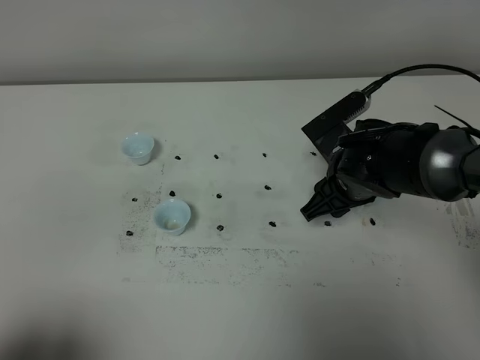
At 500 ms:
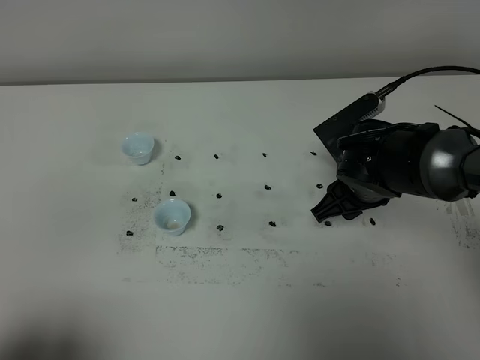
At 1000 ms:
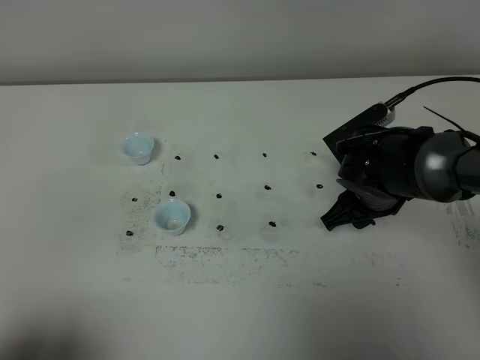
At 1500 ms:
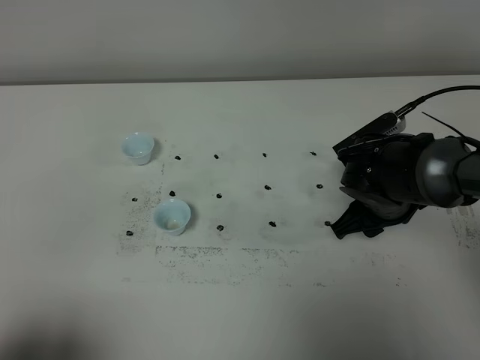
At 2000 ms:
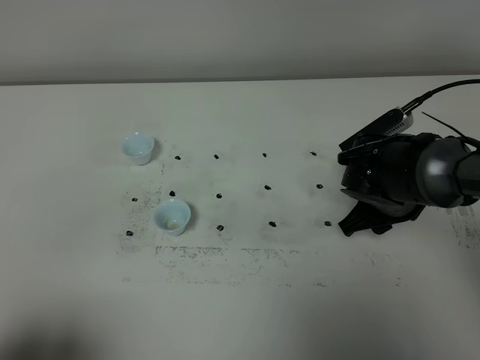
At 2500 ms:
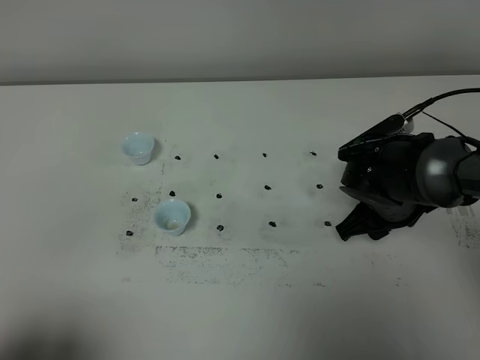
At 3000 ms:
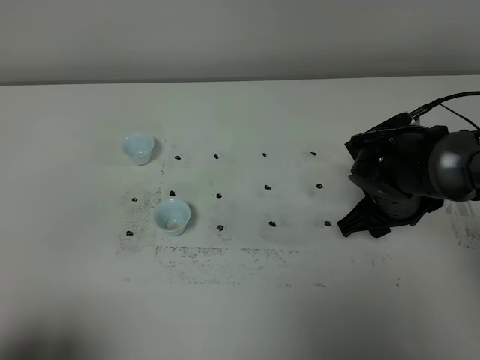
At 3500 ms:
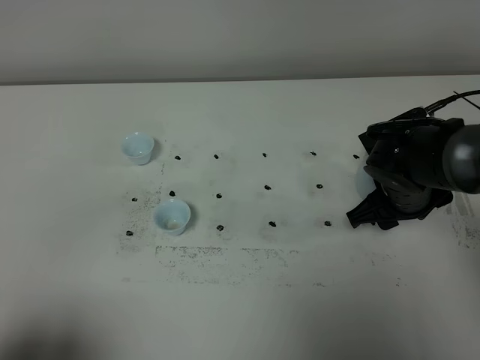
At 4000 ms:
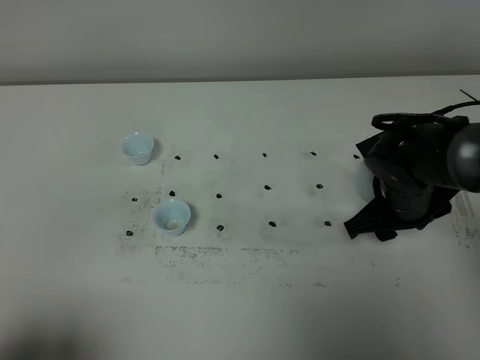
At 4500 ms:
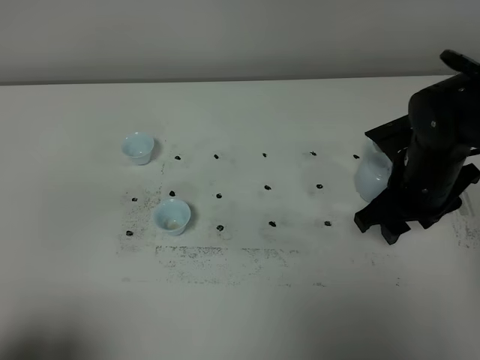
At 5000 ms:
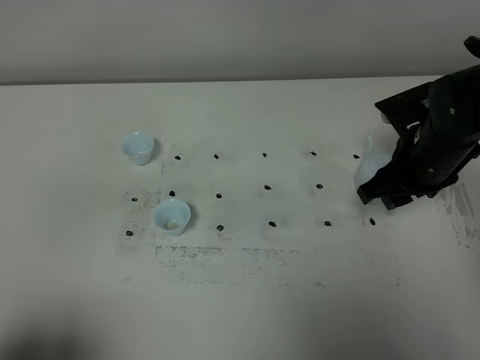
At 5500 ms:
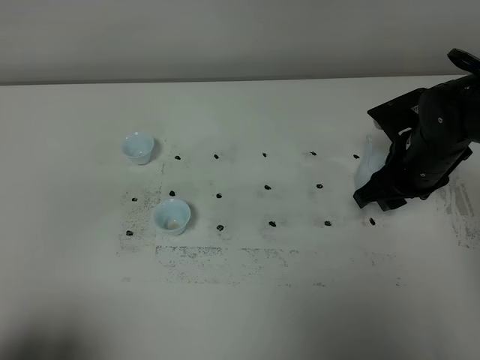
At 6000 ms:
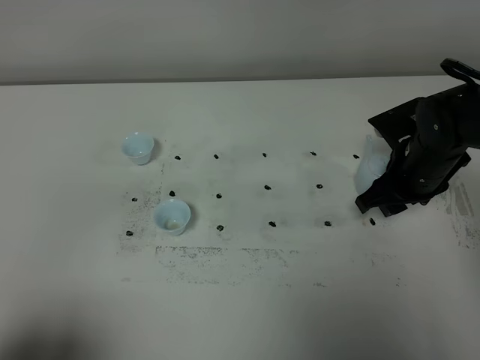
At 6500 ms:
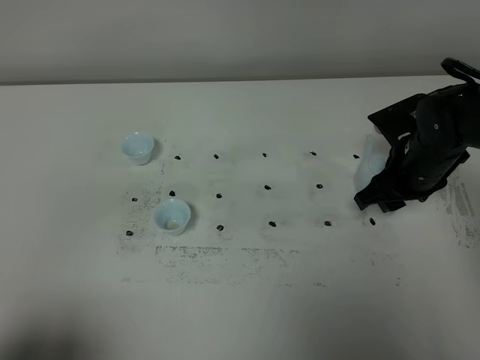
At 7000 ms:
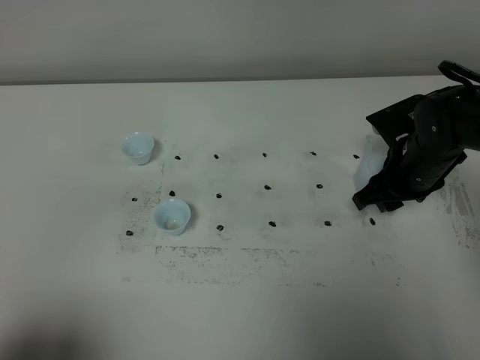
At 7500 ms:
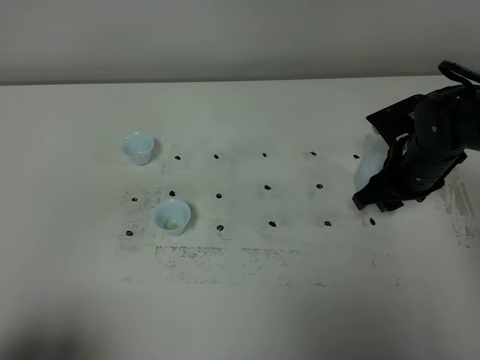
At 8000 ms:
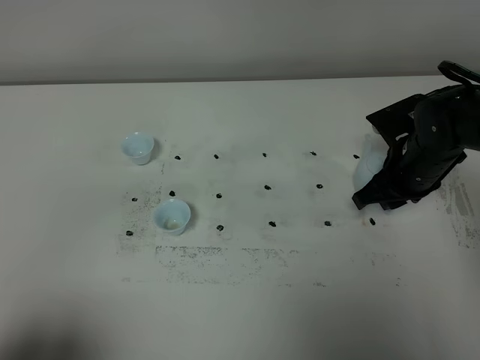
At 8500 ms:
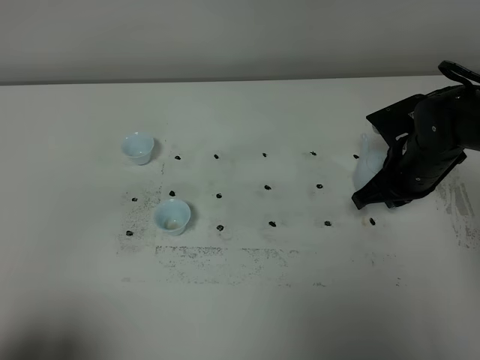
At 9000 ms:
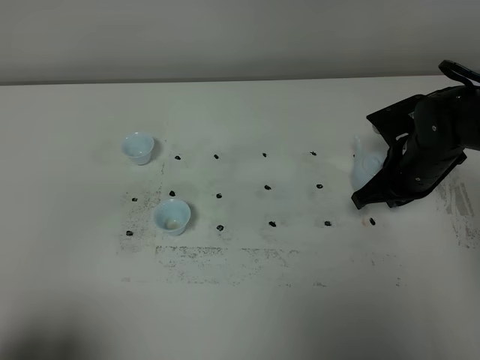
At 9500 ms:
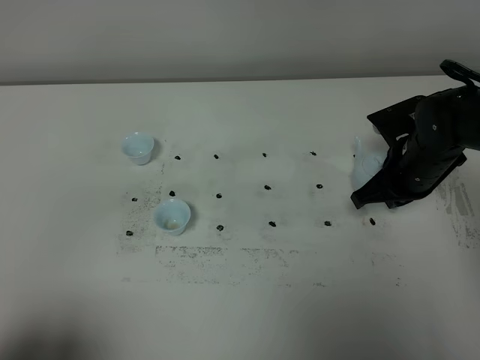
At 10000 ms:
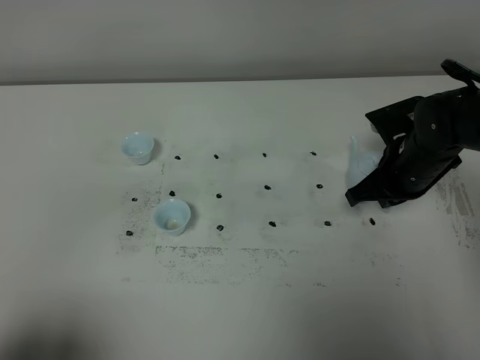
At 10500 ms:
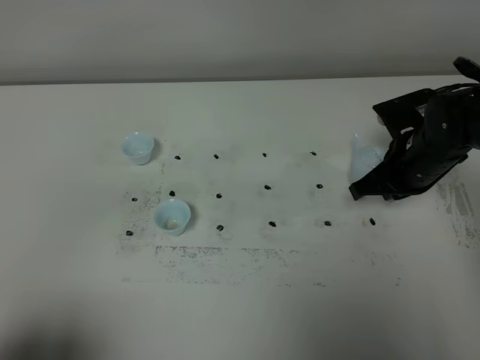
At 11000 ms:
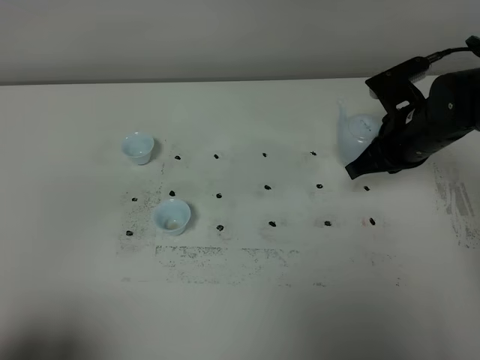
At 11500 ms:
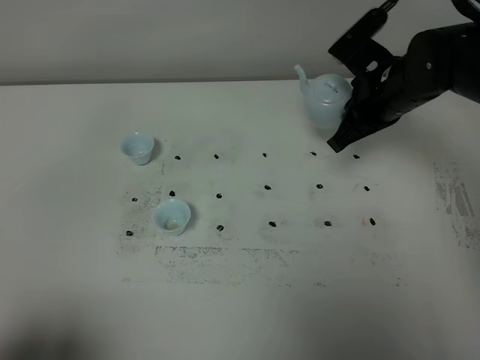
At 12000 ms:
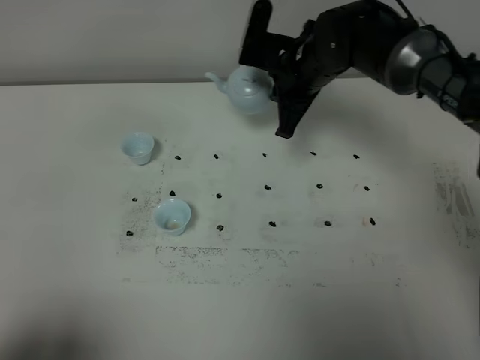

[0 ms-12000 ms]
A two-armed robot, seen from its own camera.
Task of the whole recording: grasp the blue porcelain teapot and pour the tea into the two blue porcelain teacups one by one, put the blue porcelain teapot back in its original place.
Step, 0 ms to 10500 ms: Pick up the teapot with the right gripper.
2000 ms to 4000 ms: The grippers move only a little.
4000 ms to 6000 ms: The right gripper changes place by some 5 cm.
6000 ms to 8000 ms: The two grippers keep their place.
8000 ms to 10000 ms: The right gripper closes up.
10000 ms to 12000 ms: The right gripper heads to the left, forward and upward, covering some 20 cm.

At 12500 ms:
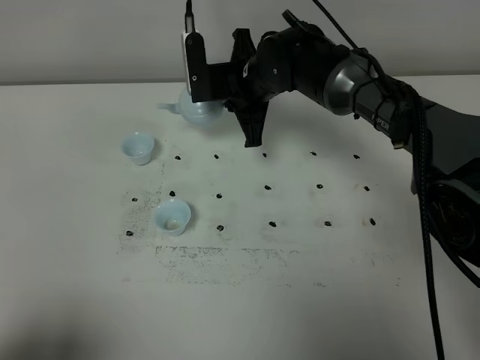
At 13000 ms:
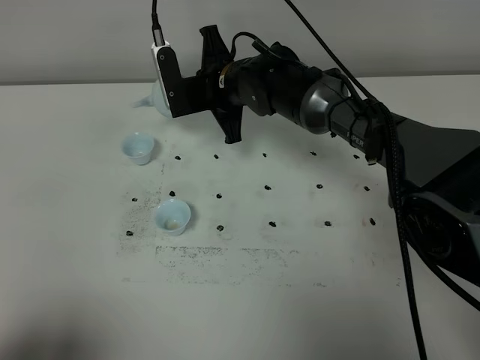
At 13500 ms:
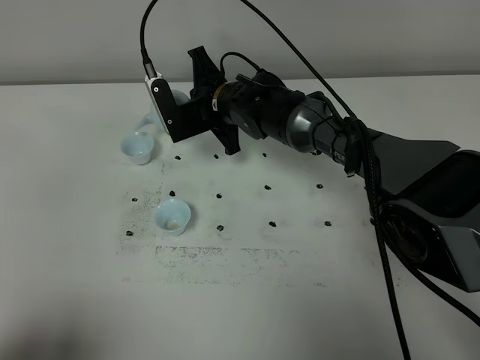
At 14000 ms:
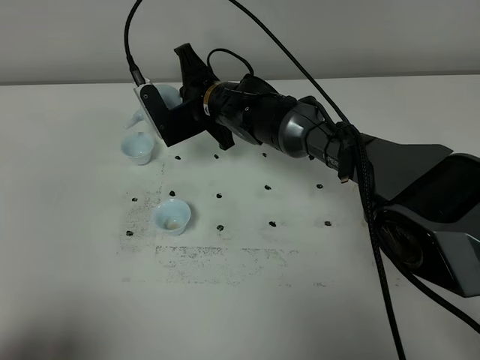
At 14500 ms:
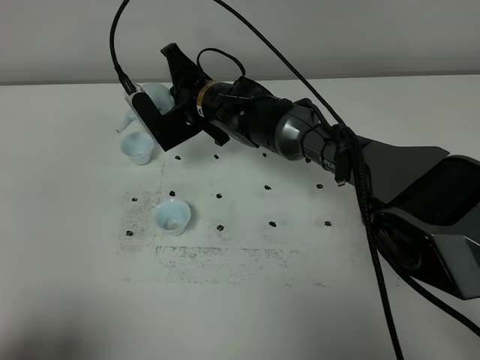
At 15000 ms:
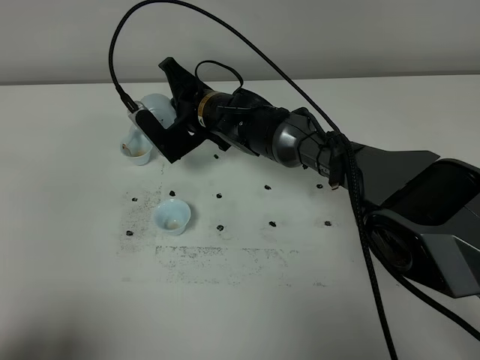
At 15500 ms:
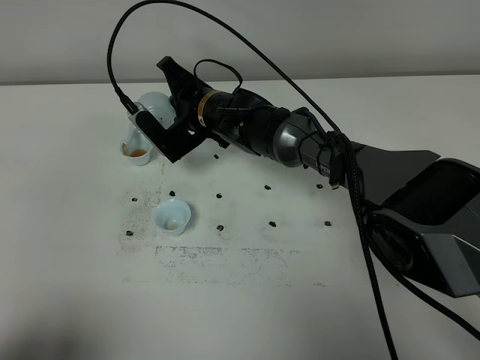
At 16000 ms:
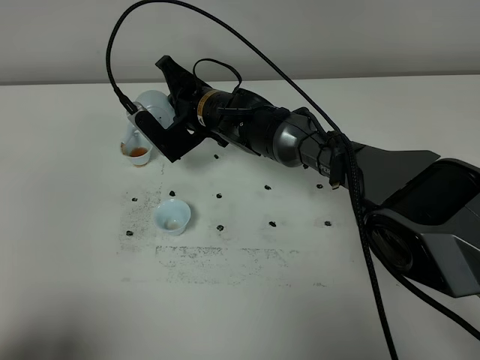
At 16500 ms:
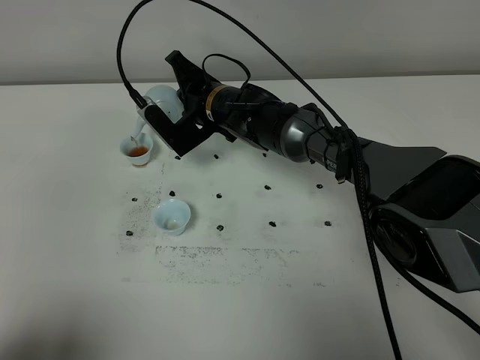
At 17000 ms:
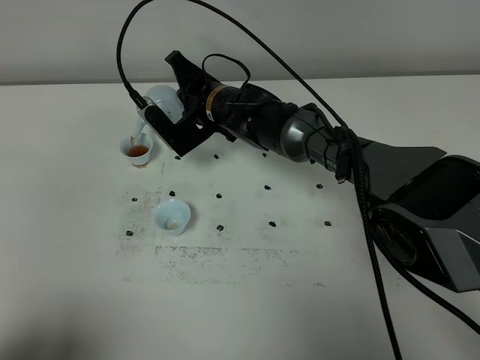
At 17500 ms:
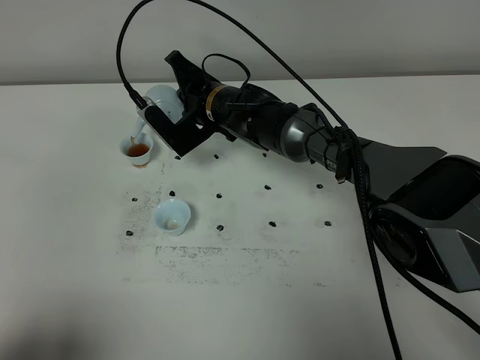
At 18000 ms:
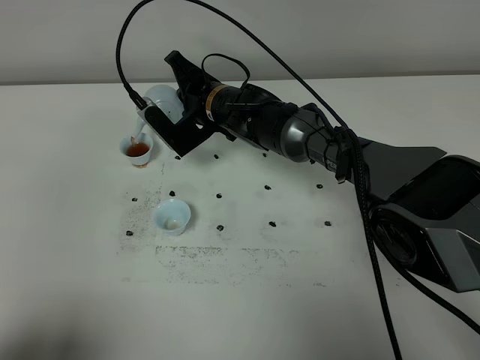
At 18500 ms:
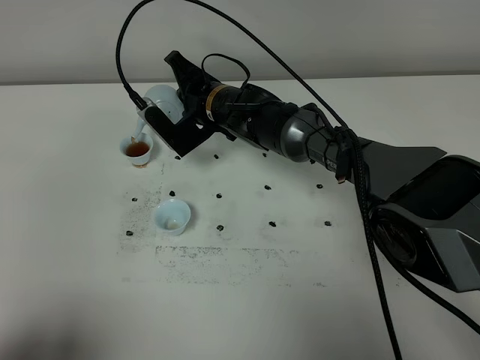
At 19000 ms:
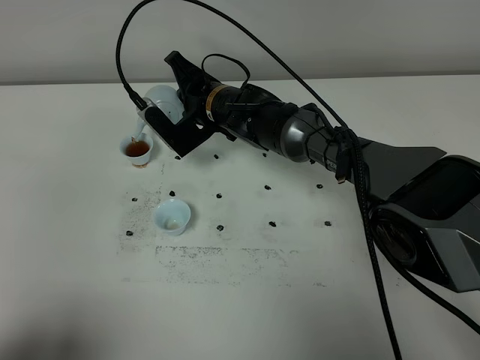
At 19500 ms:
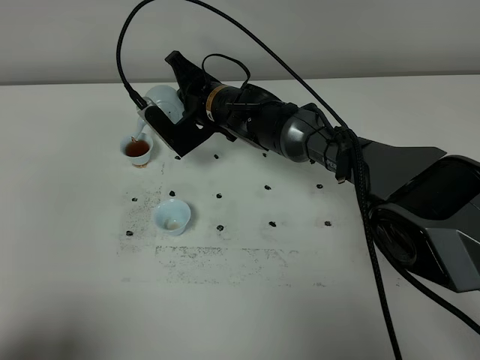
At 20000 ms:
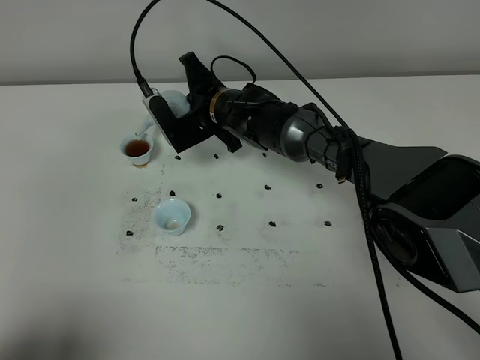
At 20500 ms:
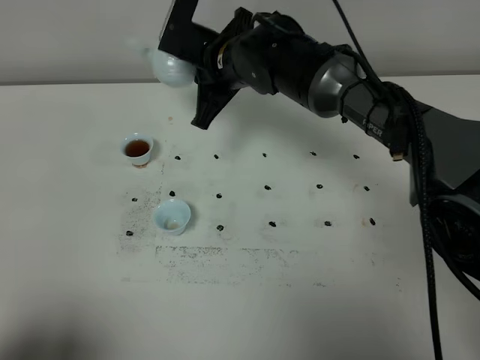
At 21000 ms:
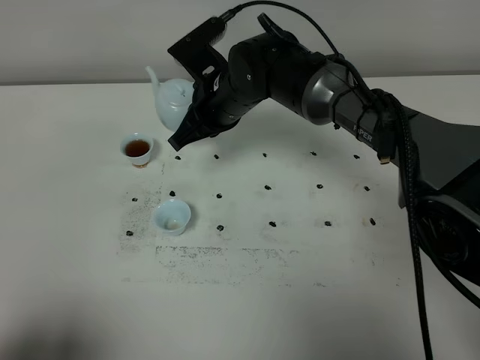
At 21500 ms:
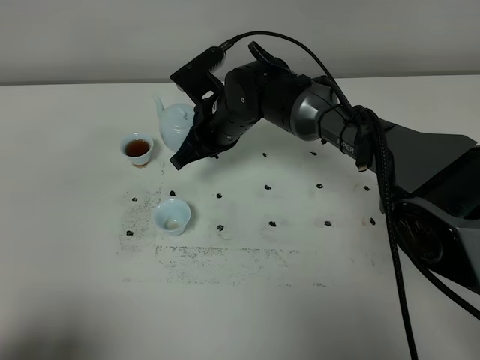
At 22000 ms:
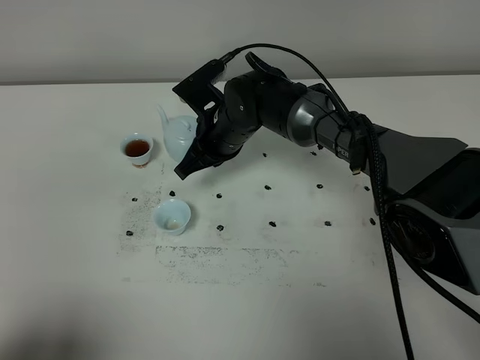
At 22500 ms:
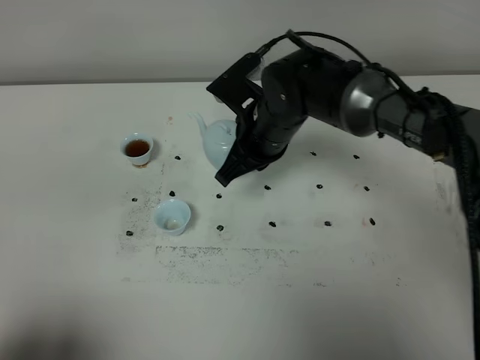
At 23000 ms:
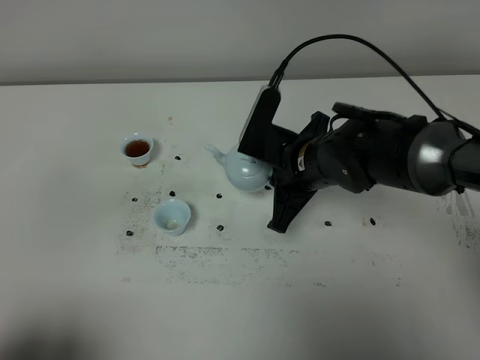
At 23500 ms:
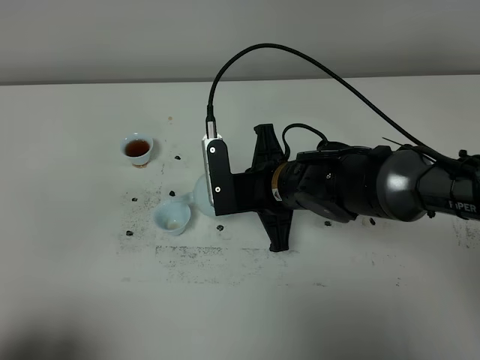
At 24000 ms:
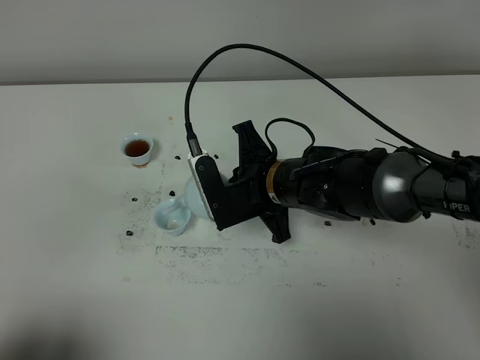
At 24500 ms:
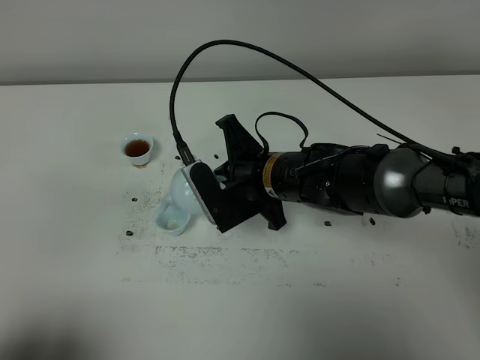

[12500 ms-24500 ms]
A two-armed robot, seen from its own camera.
Task of the whole recording: grasp the blue porcelain teapot and pour the tea into the two blue porcelain teacups one by one, put the blue porcelain teapot back in its original place.
Step, 12500 ms to 20000 ms: Pour tea into the teacup with the right gripper.
12500 ms to 14500 ms: The right gripper goes roughly 5 cm to the left.
14500 ms to 16500 ms: There are only small adjustments of the grippers.
16500 ms to 18500 ms: Both grippers stay put.
18500 ms to 20500 ms: The right gripper travels upward by about 10 cm.
20500 ms to 22500 ms: The right gripper is displaced backward by approximately 5 cm.
22500 ms to 24500 ms: The right gripper is displaced backward by approximately 5 cm.

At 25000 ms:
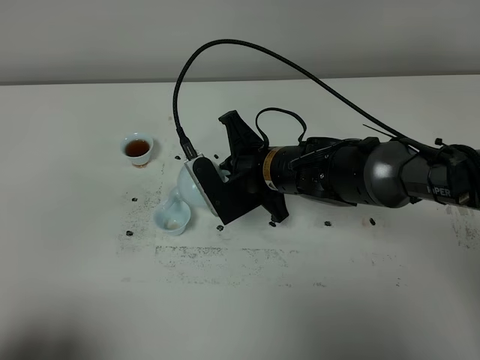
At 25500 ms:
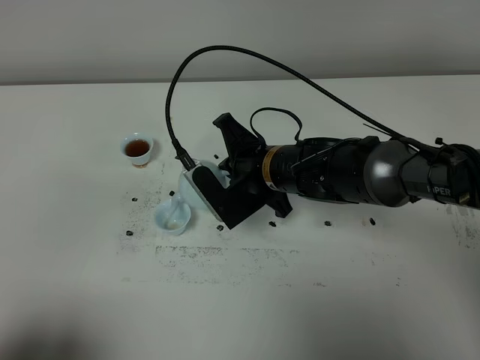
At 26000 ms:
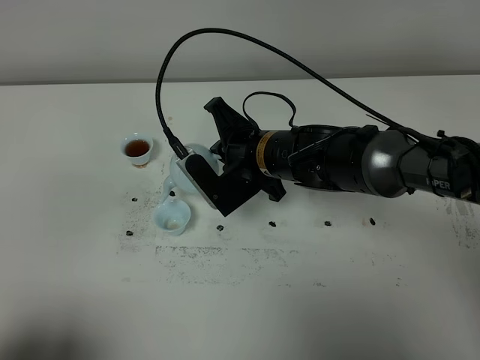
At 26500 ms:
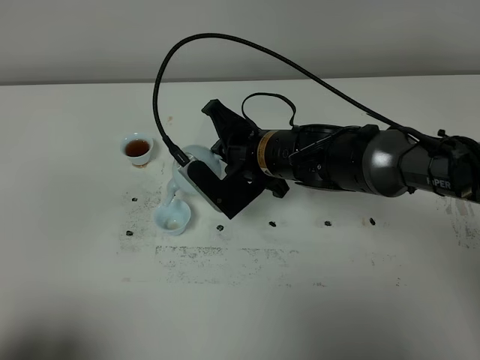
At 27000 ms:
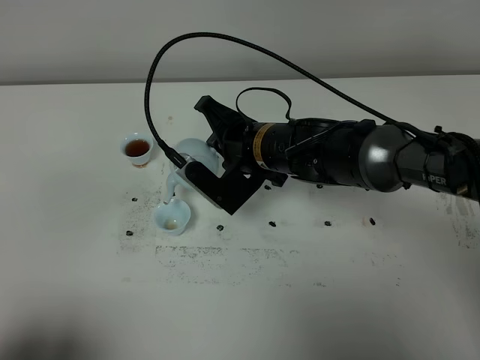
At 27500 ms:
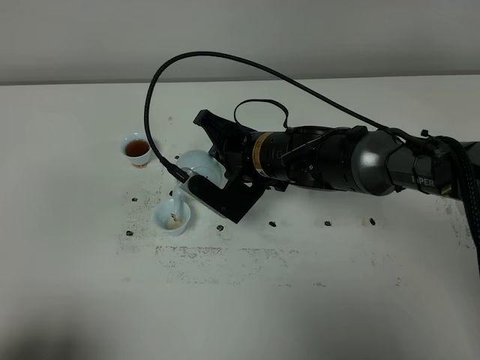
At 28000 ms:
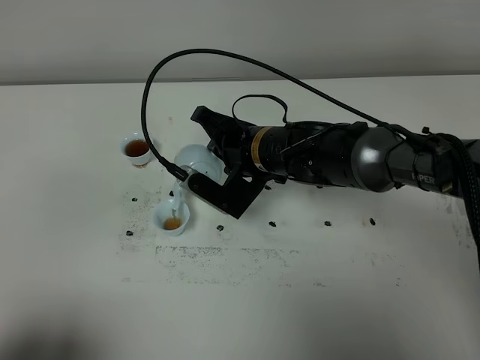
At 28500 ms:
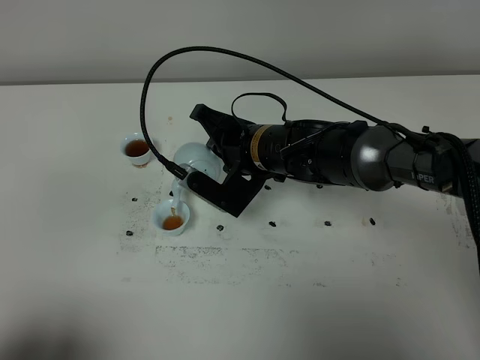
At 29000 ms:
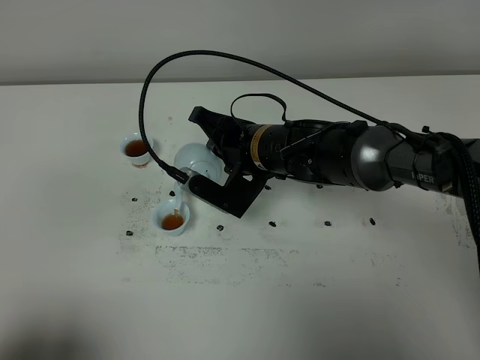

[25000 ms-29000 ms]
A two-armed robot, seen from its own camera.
Task of the whole recording: grasp the blue porcelain teapot and pour the tea into the two blue porcelain teacups one by one, put the blue porcelain teapot back in its original place.
27000 ms to 29000 ms: The grippers make only small movements.
